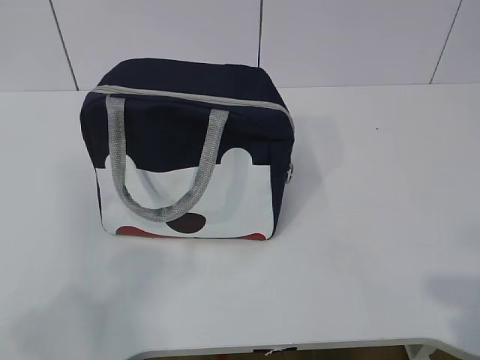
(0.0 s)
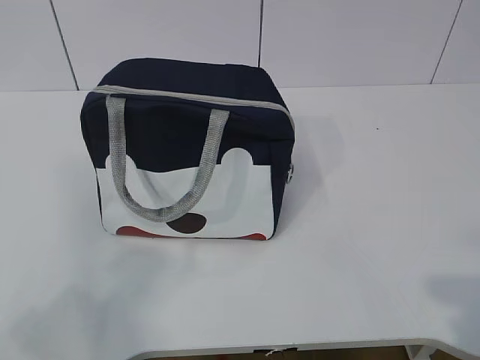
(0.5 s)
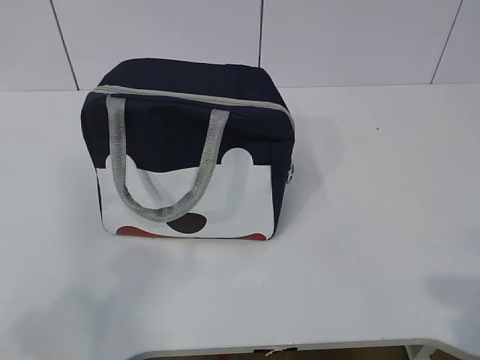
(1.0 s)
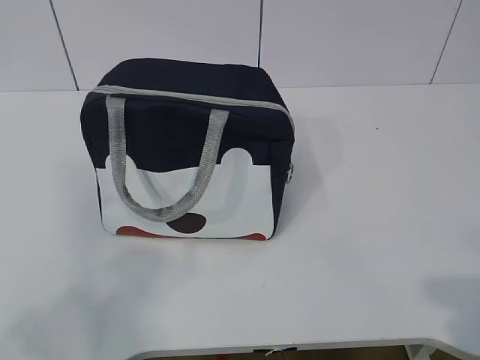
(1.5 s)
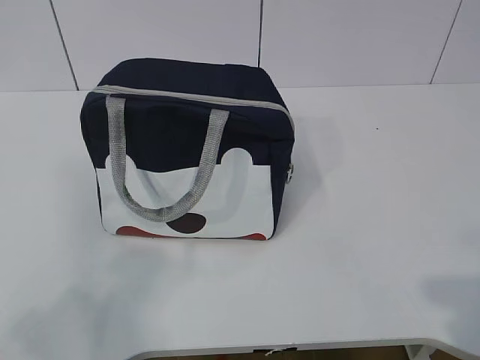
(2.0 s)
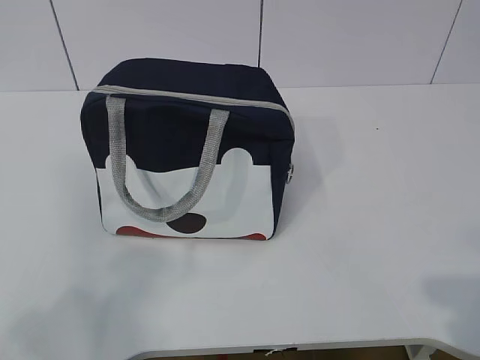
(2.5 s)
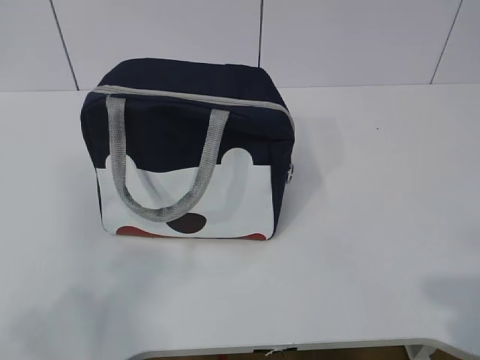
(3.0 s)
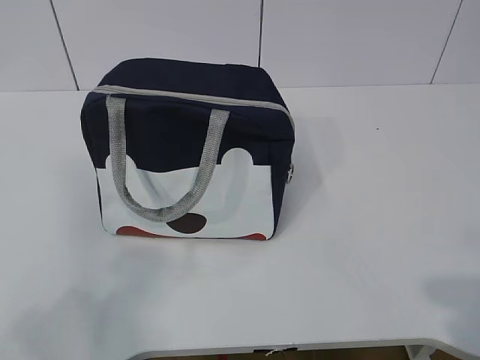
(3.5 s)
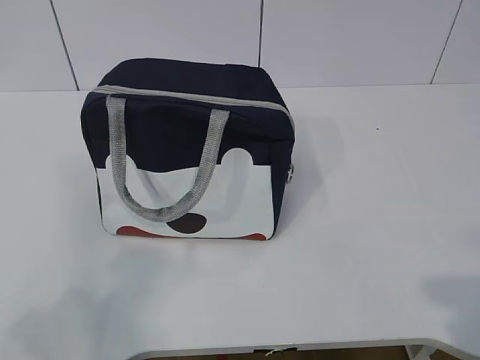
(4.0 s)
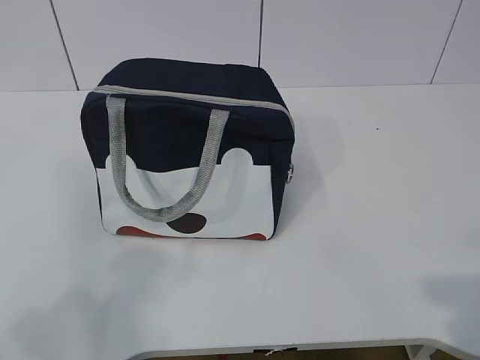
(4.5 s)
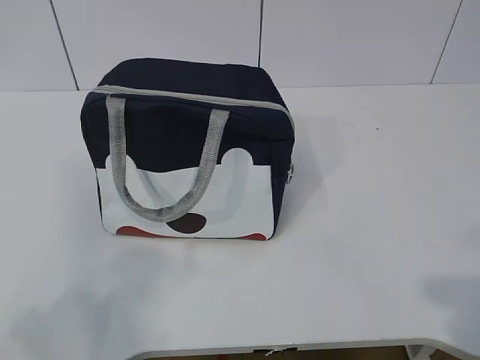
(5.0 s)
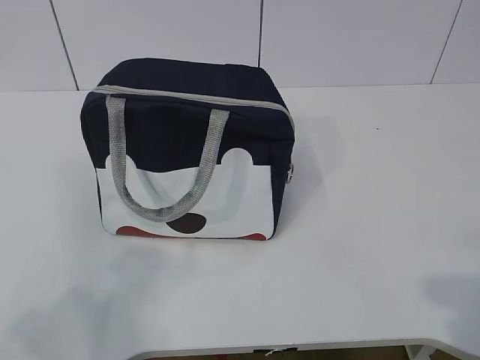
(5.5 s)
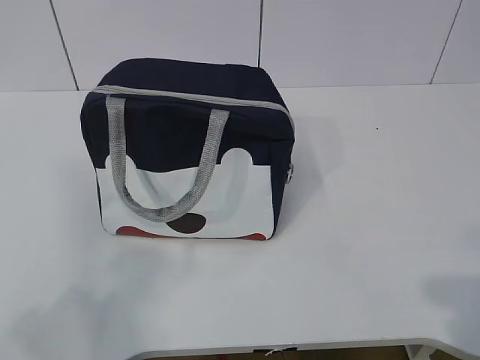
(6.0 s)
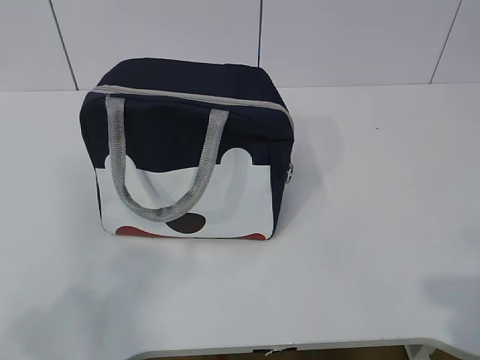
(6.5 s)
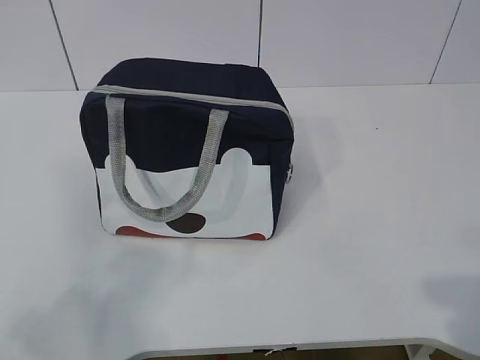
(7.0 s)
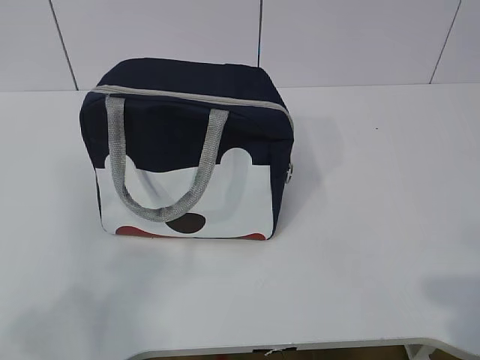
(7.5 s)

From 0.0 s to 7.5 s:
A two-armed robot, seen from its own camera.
From 0.0 s to 7.5 s: The two grippers keep their place.

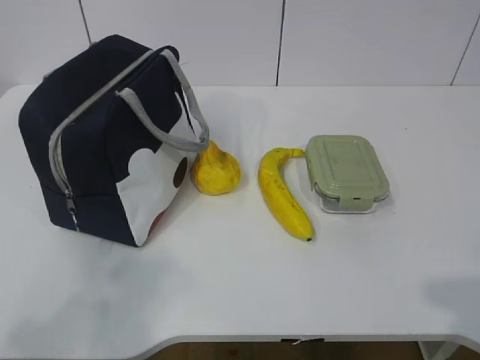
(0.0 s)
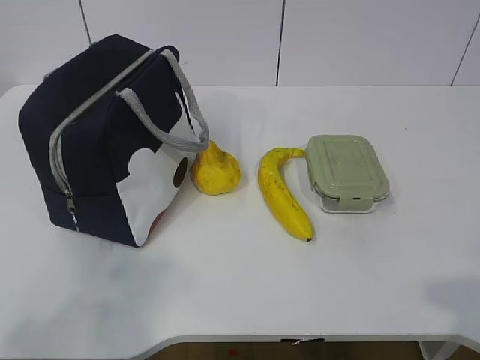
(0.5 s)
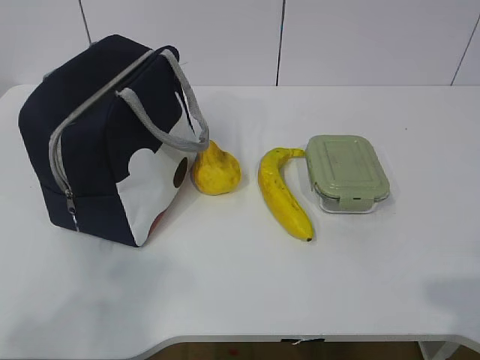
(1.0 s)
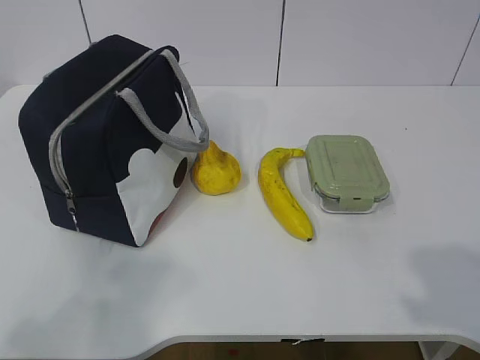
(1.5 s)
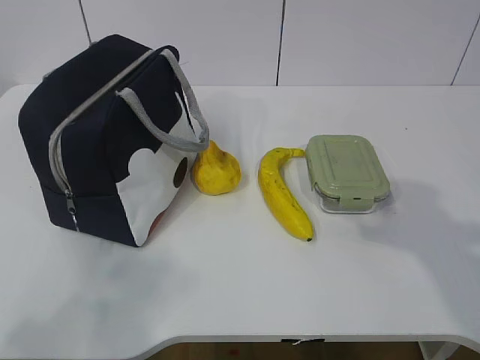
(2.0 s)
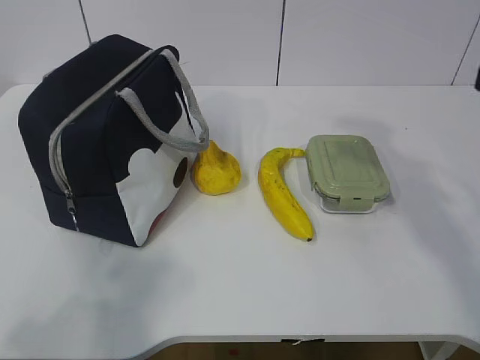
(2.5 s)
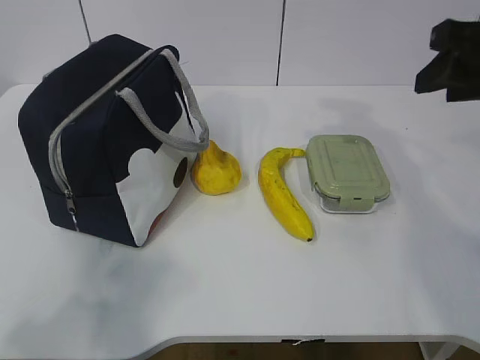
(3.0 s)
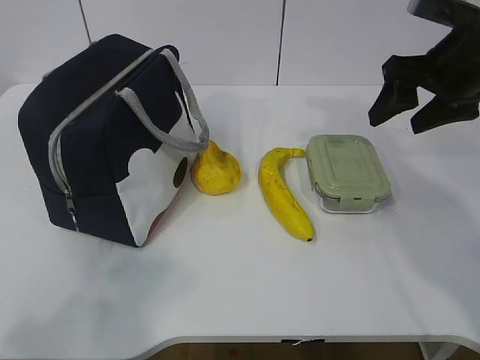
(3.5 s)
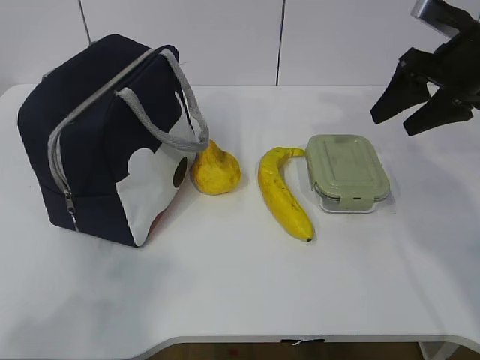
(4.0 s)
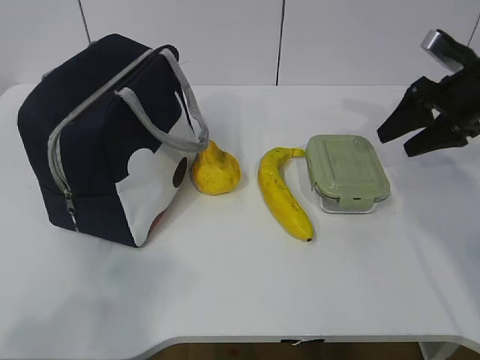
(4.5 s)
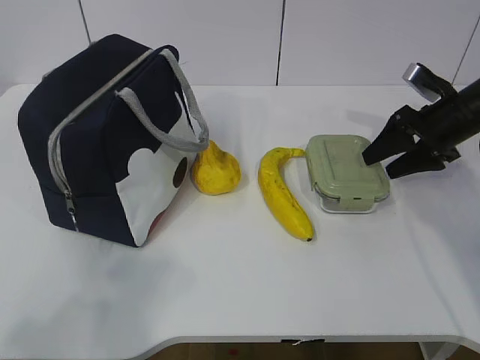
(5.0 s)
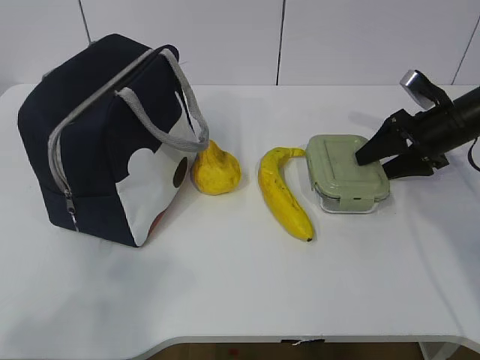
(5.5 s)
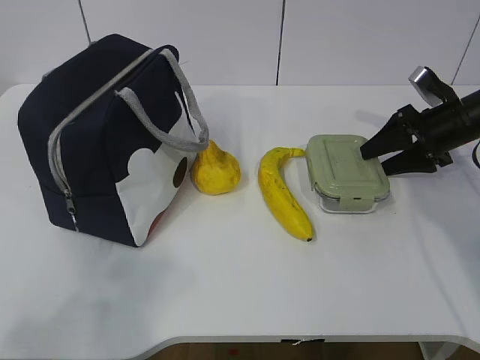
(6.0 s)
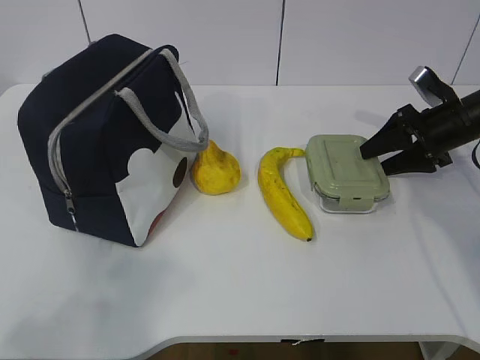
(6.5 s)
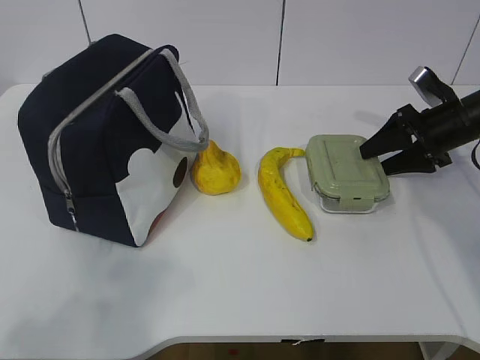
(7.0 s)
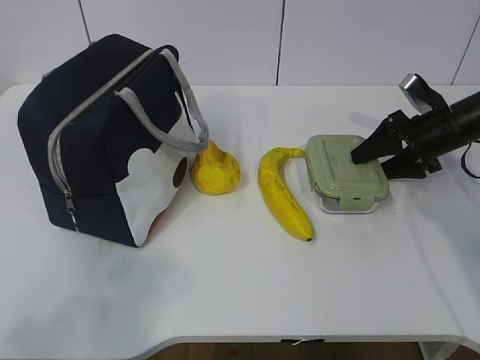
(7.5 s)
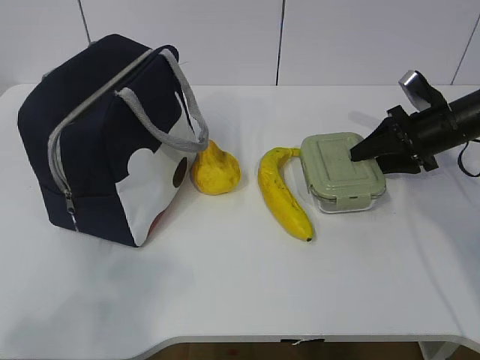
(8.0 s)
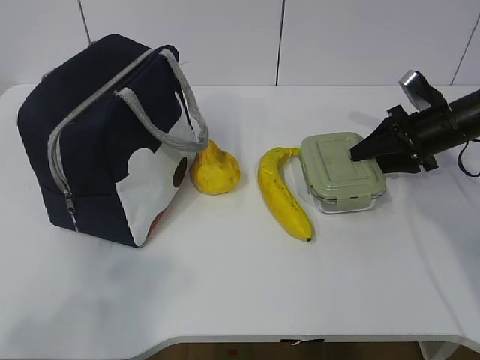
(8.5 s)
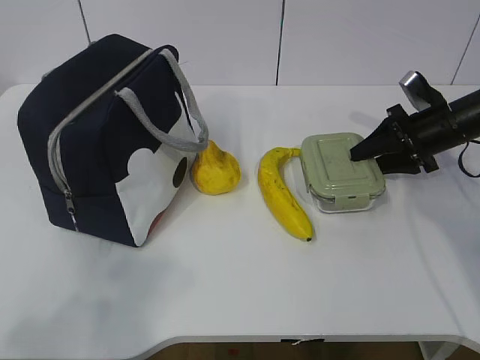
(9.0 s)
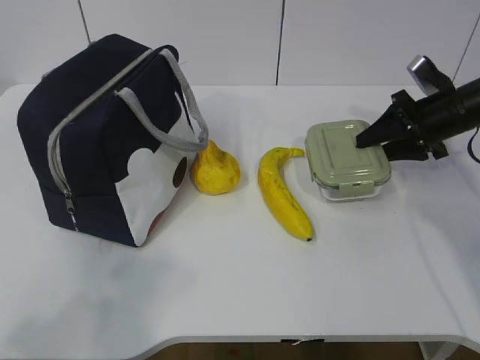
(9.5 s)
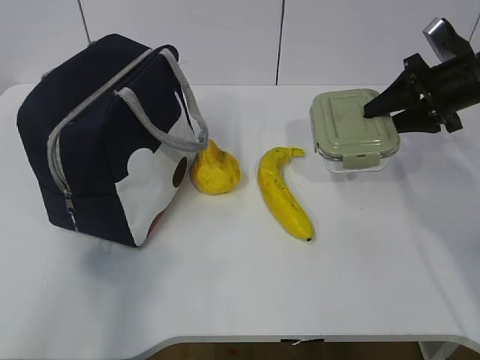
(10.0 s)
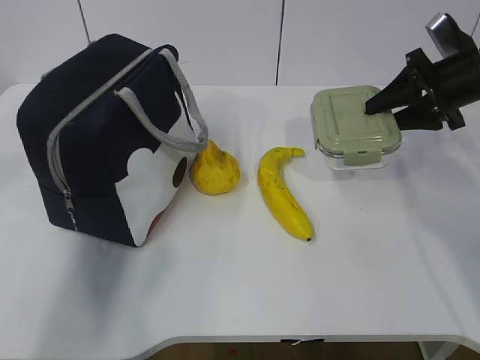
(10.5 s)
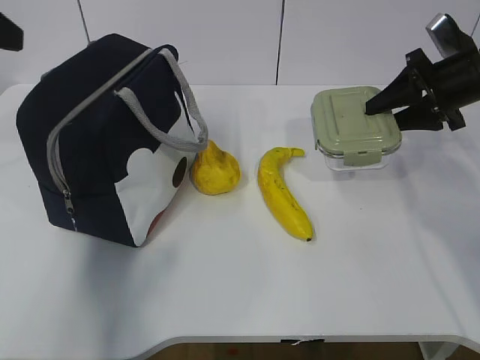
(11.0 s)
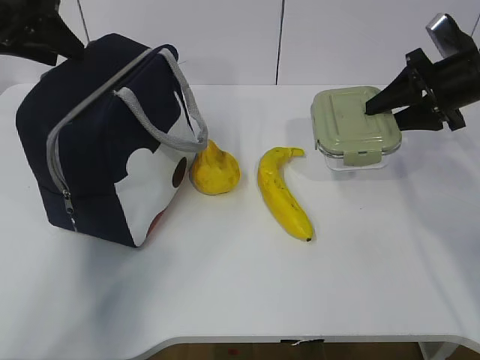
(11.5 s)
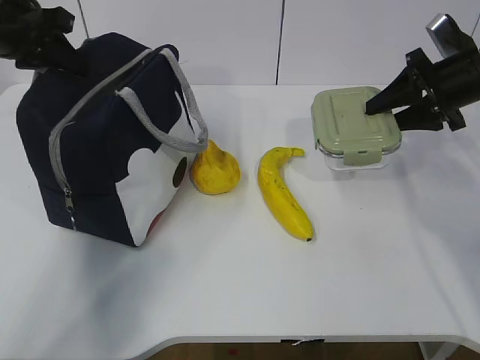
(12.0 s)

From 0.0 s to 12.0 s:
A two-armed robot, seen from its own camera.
Step, from 0.0 s to 7.5 s: Grab the lunch box with your right hand.
Step, from 8.0 s to 11.0 s: Grab the lunch bag with your left hand.
From 2.0 s to 4.0 s: The right gripper goes some 30 cm forward, and opens up.
From 4.0 s to 6.0 s: The right gripper goes some 10 cm downward.
From 6.0 s to 8.0 s: There are only small adjustments of the grippers.
From 8.0 s to 10.0 s: The left gripper moves roughly 5 cm. Meanwhile the right gripper is displaced upward by about 5 cm.
From 10.0 s to 12.0 s: The left gripper travels forward by some 35 cm, and closes up.

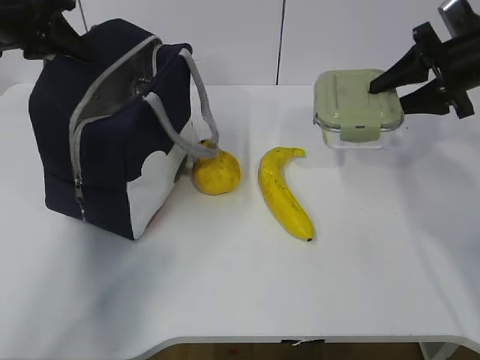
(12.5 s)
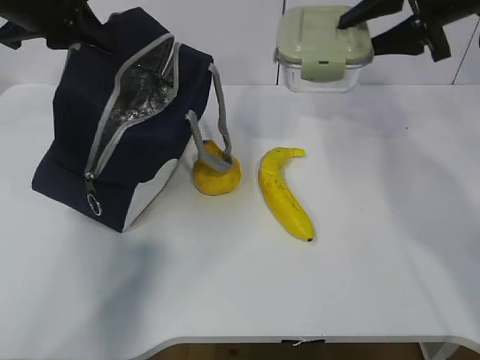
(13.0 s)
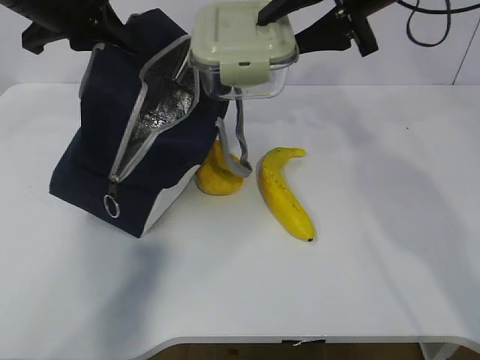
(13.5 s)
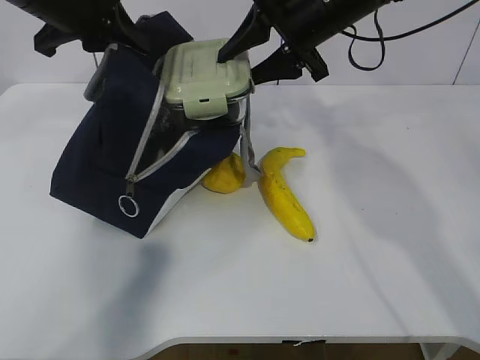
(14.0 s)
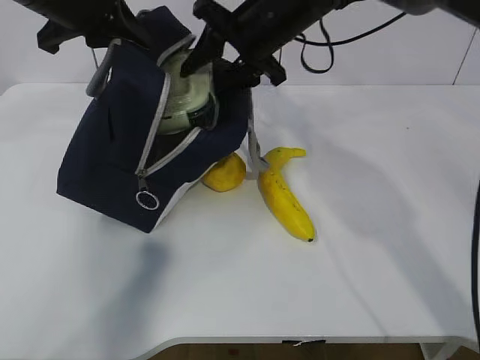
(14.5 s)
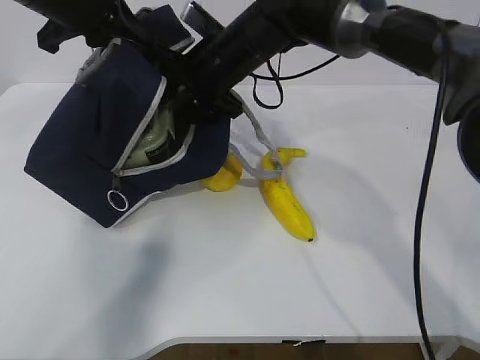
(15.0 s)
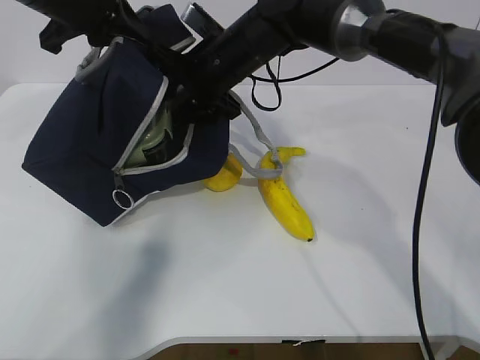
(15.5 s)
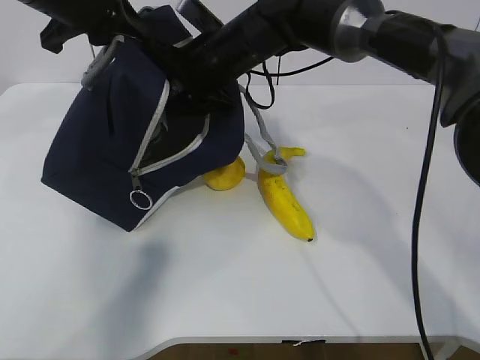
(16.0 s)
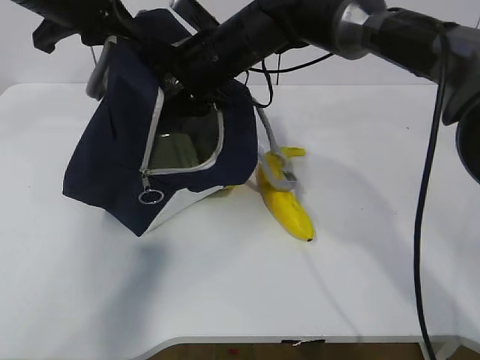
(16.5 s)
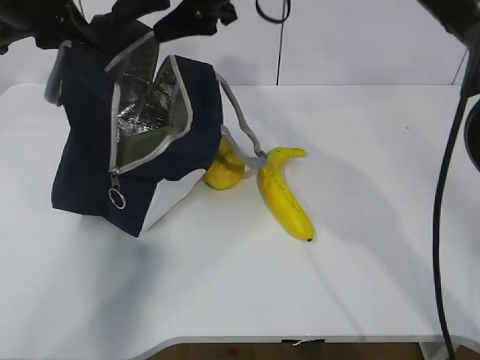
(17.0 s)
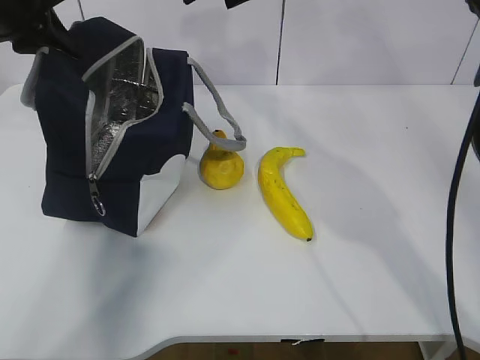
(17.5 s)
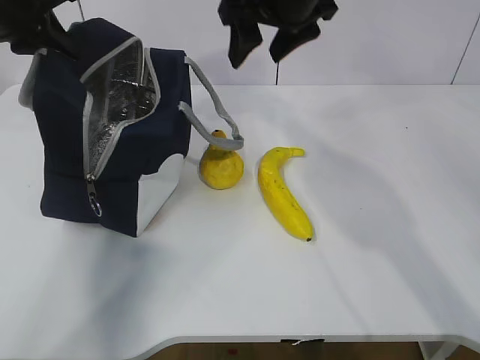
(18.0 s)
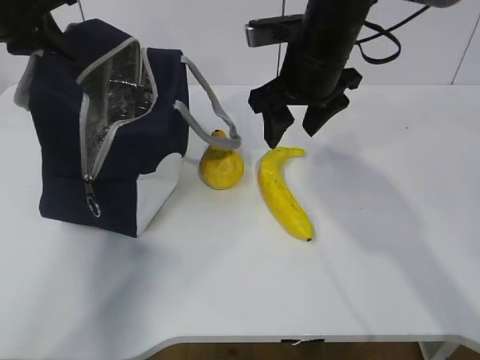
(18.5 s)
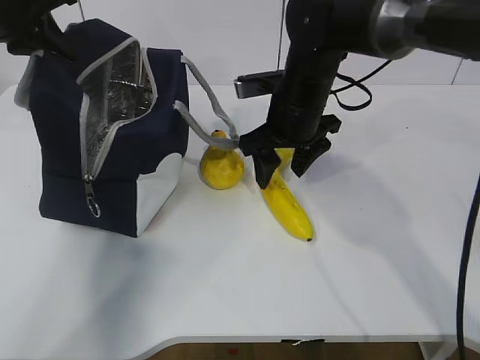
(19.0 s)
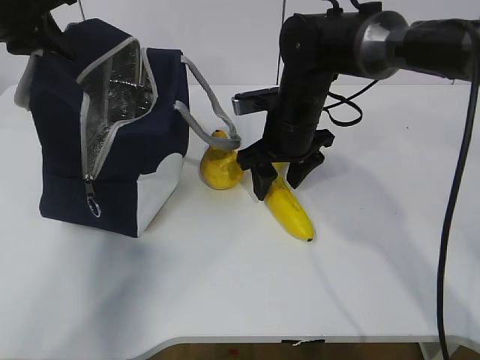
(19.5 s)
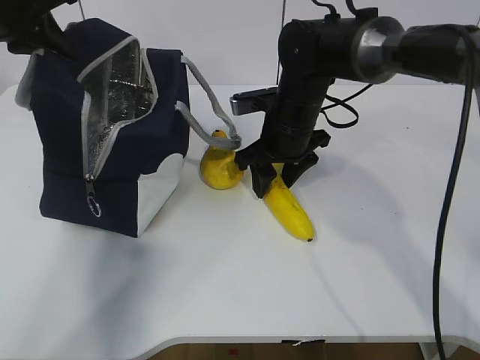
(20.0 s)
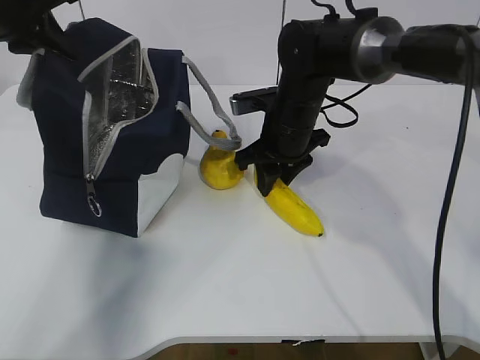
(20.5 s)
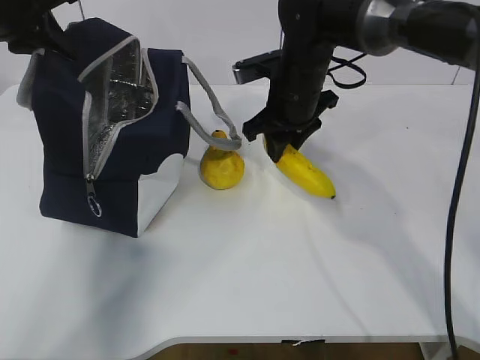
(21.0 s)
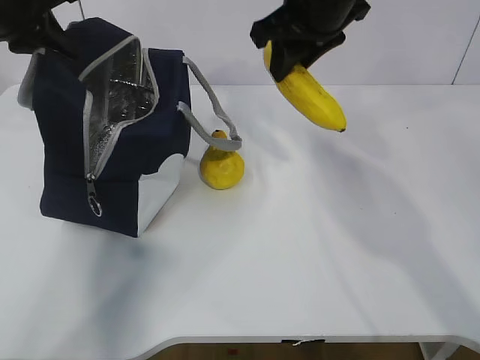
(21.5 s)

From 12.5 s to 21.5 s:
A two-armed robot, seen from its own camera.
Step, from 14.0 s to 17.0 s: Grab the banana with your right hand.
Step, from 17.5 s to 19.5 s: Place it into the bag with your right hand.
From 12.5 s to 14.5 s: The right gripper moves to the left, roughly 25 cm. Meanwhile the left gripper shifts some 10 cm to the right.
From 14.5 s to 17.0 s: The left gripper goes approximately 5 cm to the left, while the right gripper heads upward, covering approximately 5 cm.
From 17.0 s to 19.5 s: The right gripper shifts some 15 cm downward.
From 19.5 s to 21.5 s: The right gripper is displaced upward by about 15 cm, and closes its fingers.
